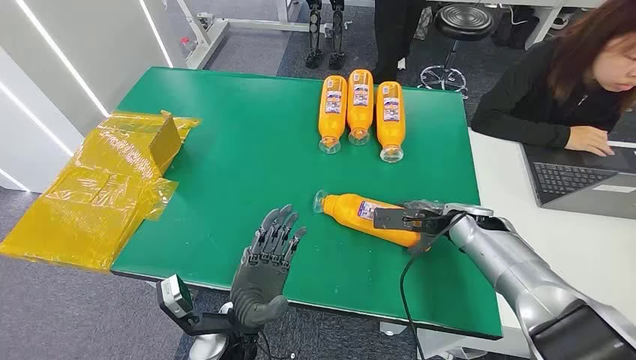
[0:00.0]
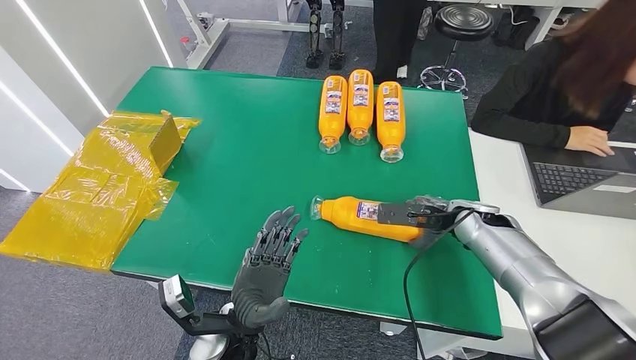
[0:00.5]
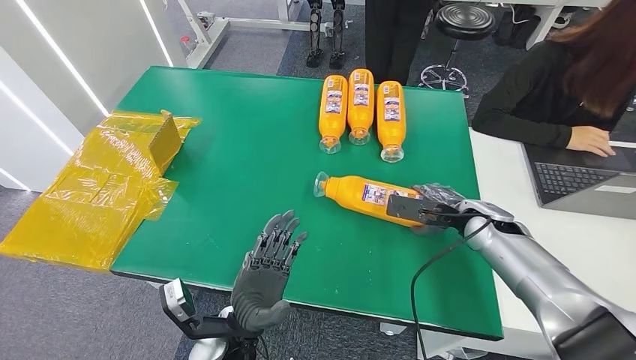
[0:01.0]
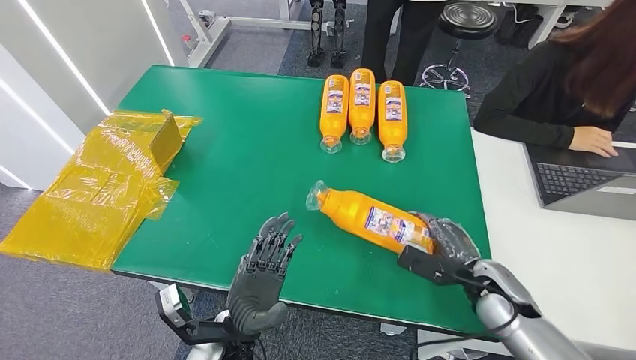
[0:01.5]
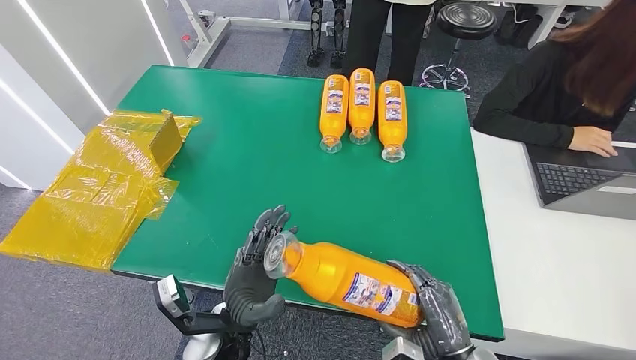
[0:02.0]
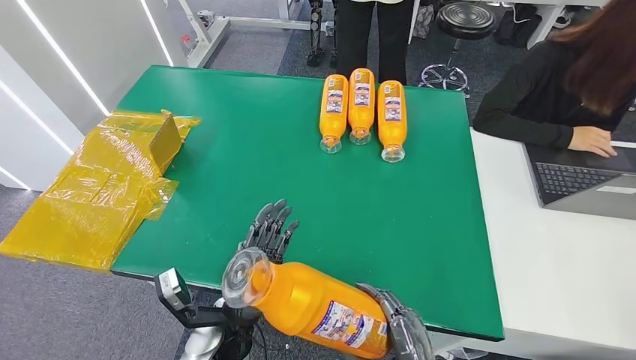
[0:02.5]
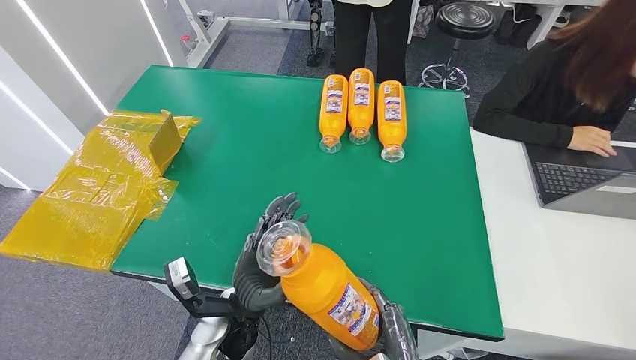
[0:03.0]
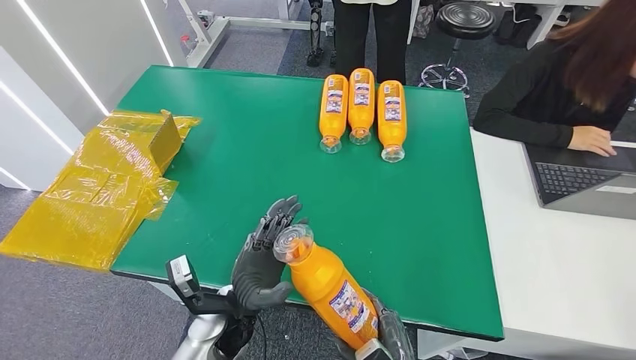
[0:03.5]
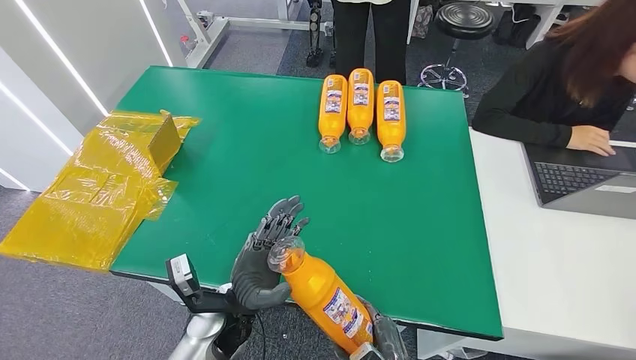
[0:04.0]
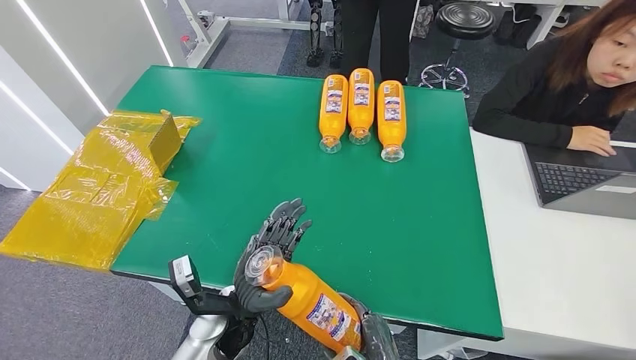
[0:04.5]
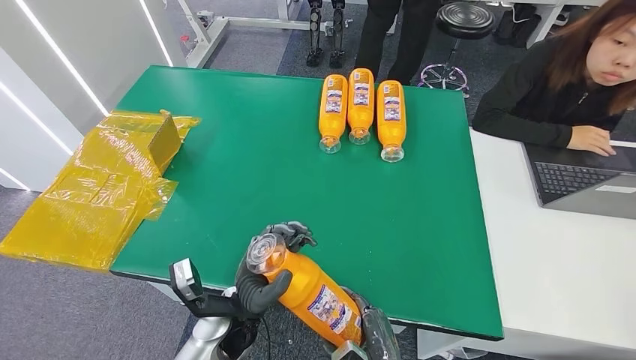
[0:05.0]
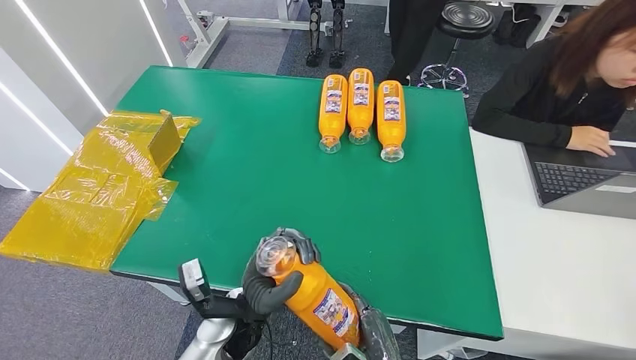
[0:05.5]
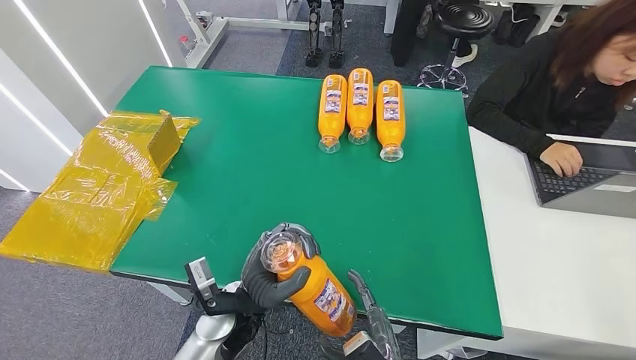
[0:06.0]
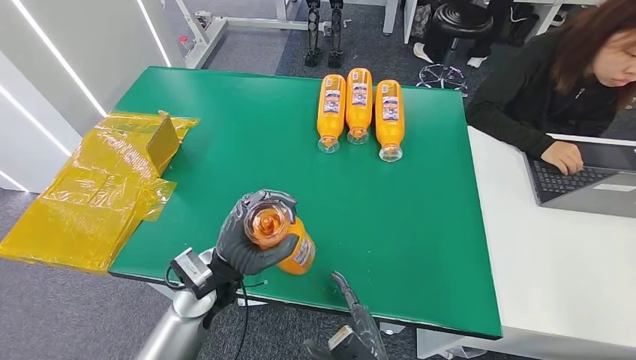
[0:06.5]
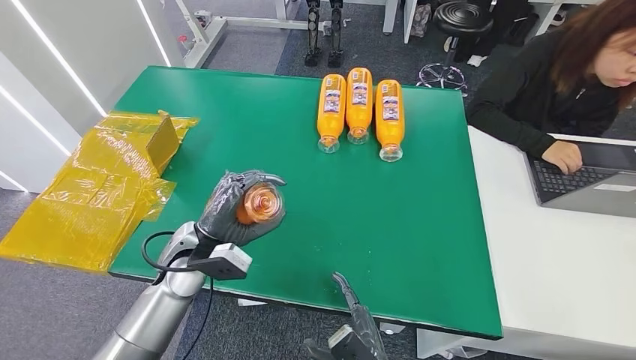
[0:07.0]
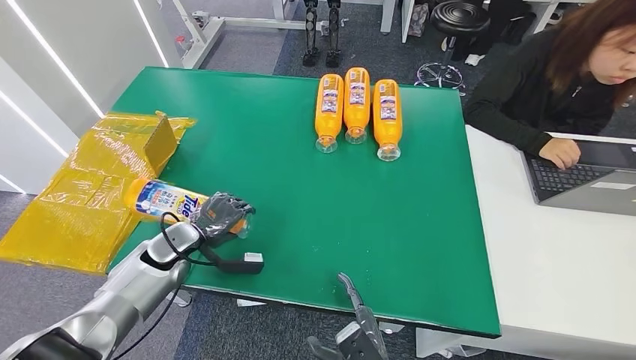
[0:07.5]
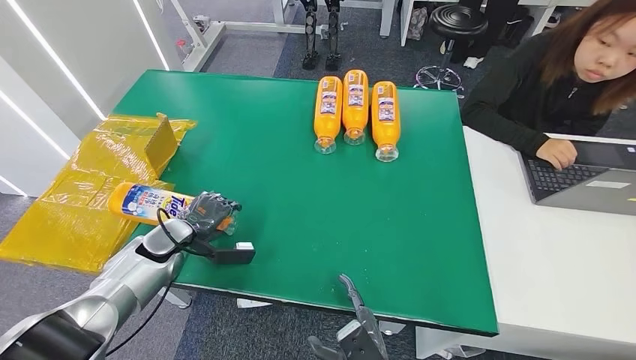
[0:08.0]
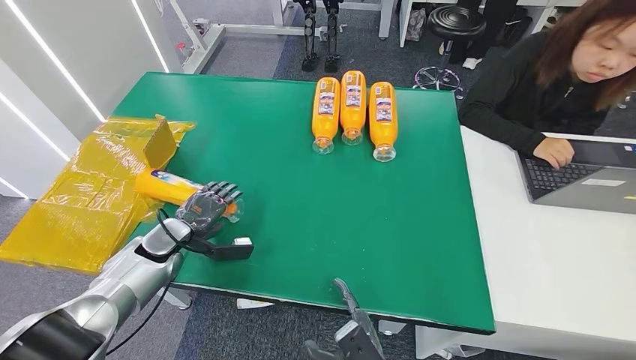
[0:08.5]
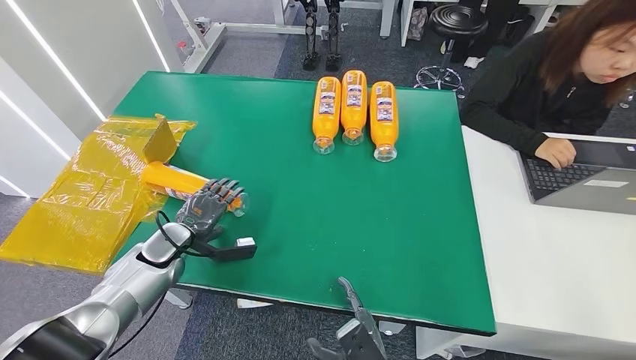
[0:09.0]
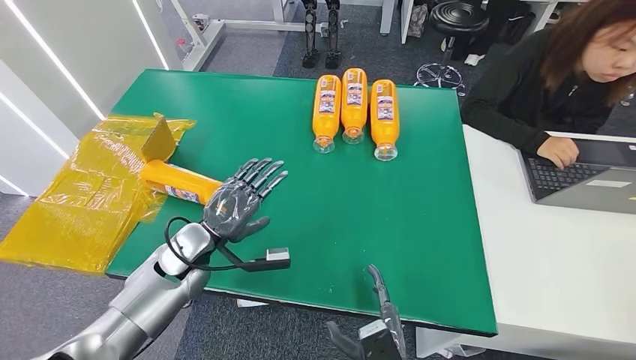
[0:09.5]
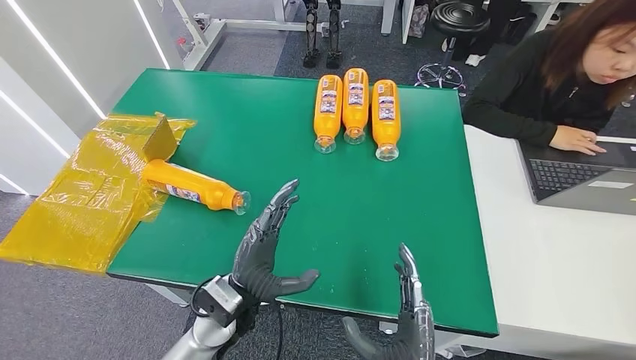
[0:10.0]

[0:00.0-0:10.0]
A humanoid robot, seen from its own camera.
Step, 0:00.0 to 0:03.0: Pick up the bottle from the table.
Step, 0:03.5 to 0:10.0: Turn the bottle to the front side.
0:02.0 to 0:04.0: The right hand goes approximately 15 cm downward and to the left.
0:04.0 to 0:06.0: The right hand shifts by about 5 cm.
0:08.0 to 0:10.0: The right hand moves upward, about 5 cm, while the left hand shifts roughly 25 cm to the right and backward.
